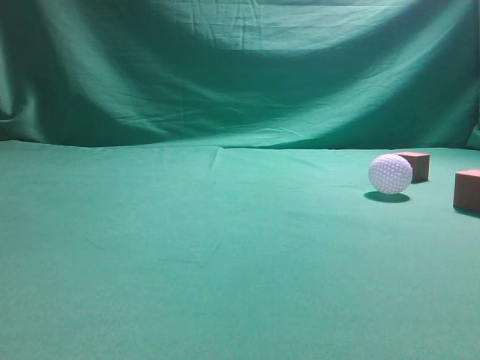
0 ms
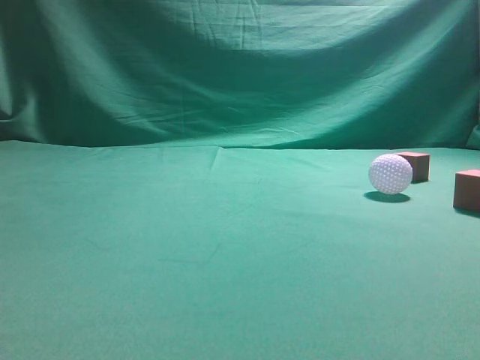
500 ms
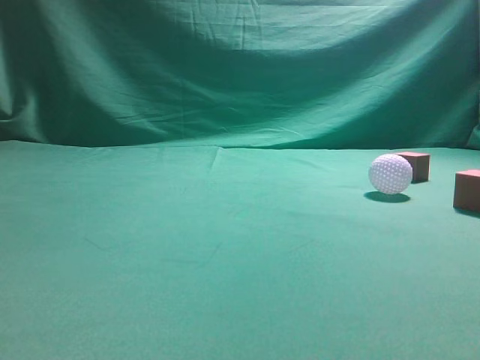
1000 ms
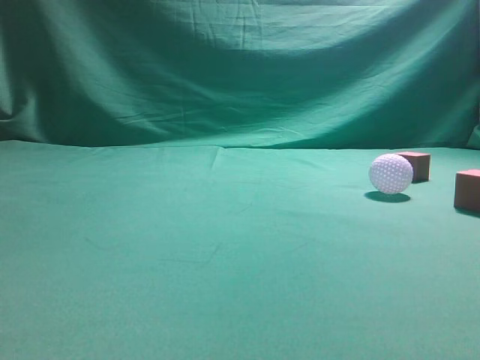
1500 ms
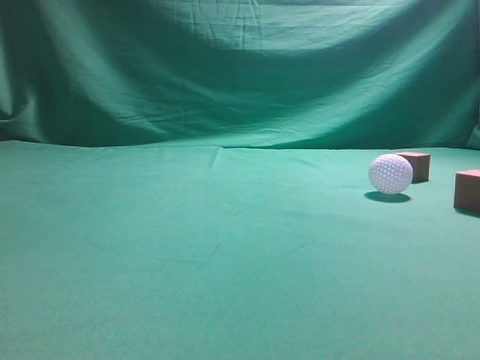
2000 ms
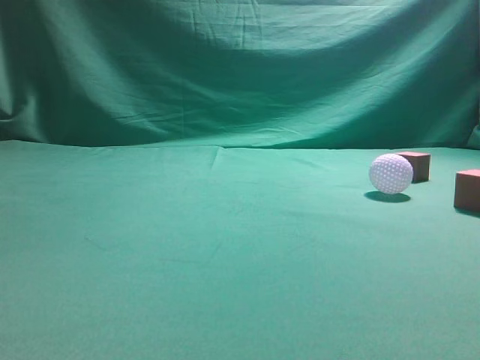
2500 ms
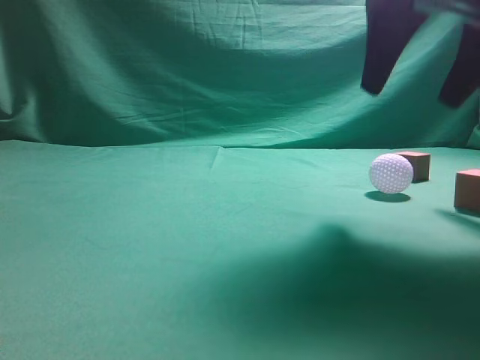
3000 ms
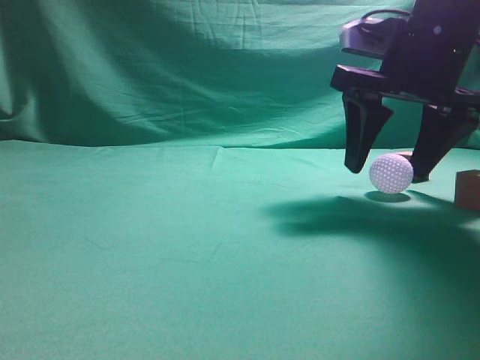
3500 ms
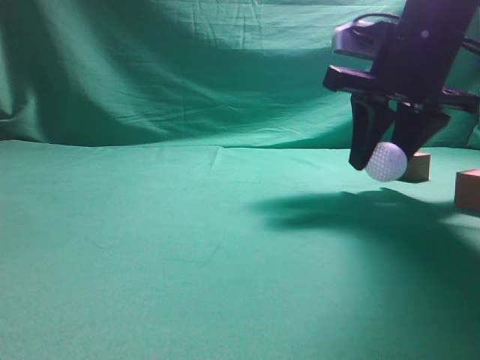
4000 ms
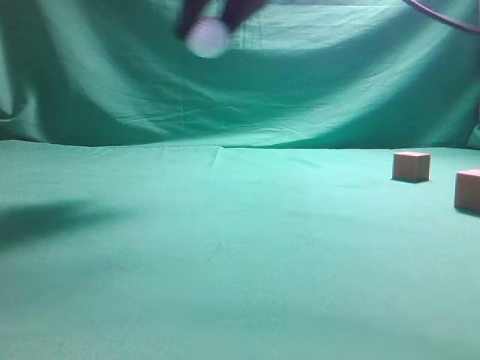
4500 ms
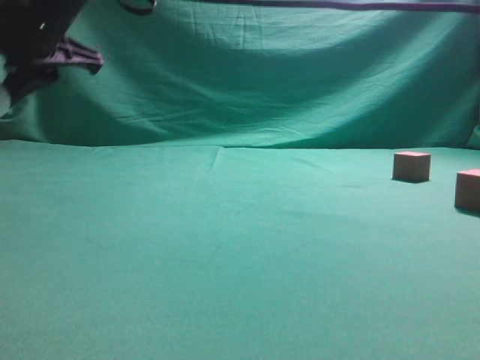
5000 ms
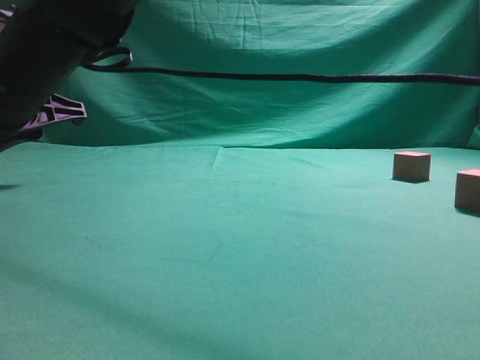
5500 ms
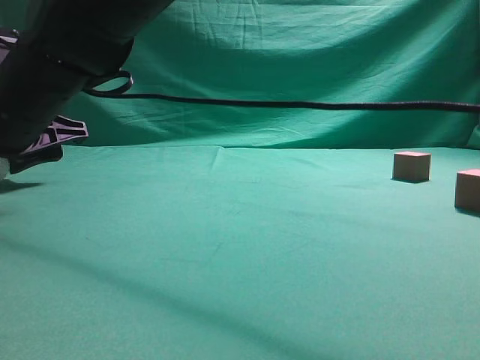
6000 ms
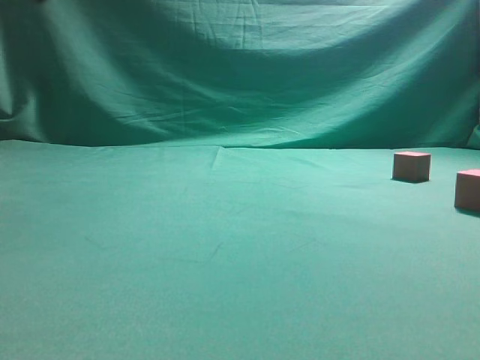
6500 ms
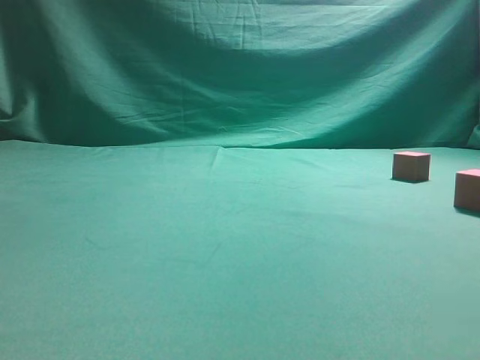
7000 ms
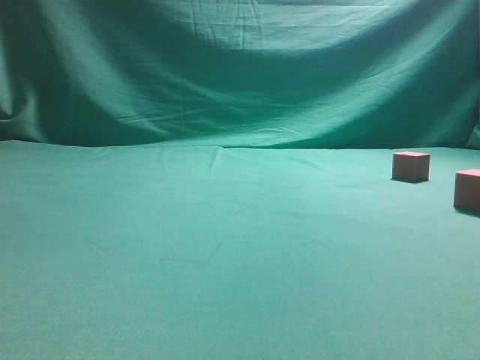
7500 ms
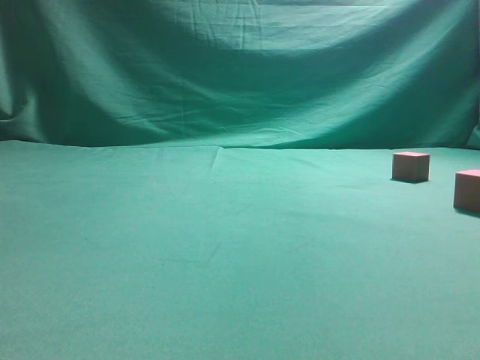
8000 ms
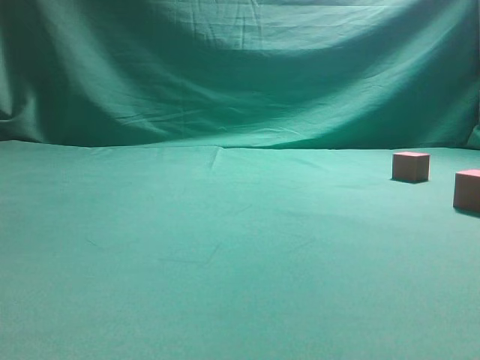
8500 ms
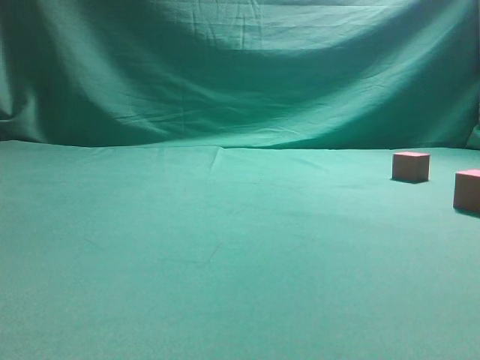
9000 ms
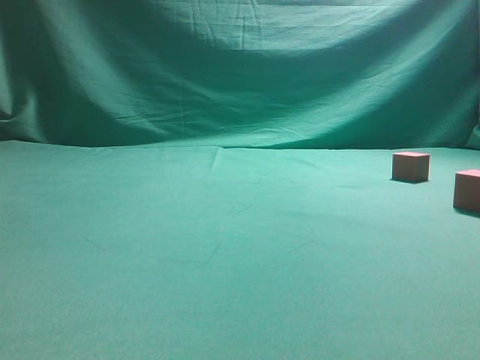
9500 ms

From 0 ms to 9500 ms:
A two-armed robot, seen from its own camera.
Step, from 0 ms to 4000 ms: Grasp the spherical object on the right side.
From 2000 ms to 4000 ms: The right gripper heads forward, to the left and downward, covering about 30 cm, and opens.
From 4000 ms to 5500 ms: The right gripper is displaced to the left by some 35 cm.
From 5500 ms to 7500 ms: The right gripper travels to the right and upward by approximately 50 cm, and closes.
